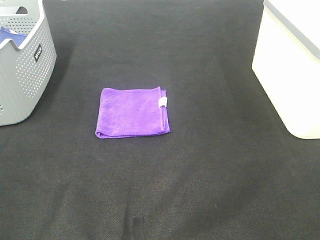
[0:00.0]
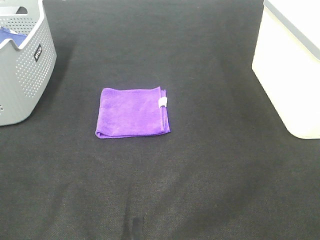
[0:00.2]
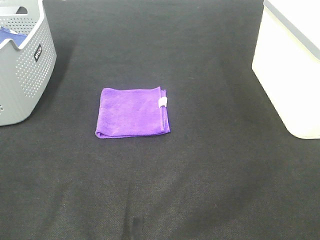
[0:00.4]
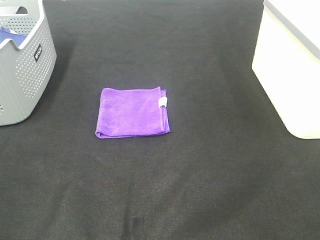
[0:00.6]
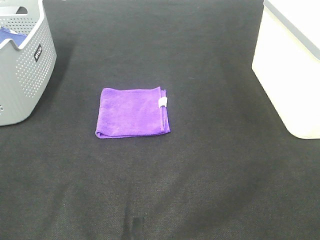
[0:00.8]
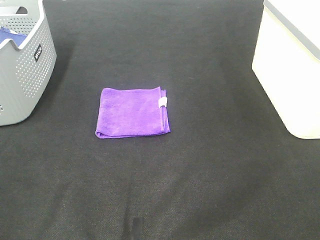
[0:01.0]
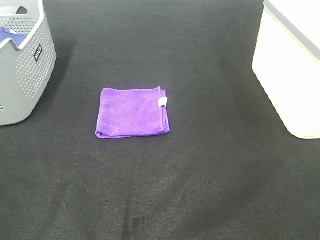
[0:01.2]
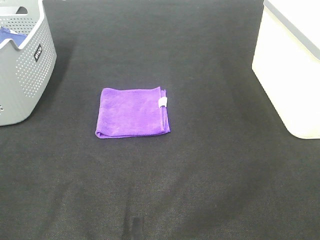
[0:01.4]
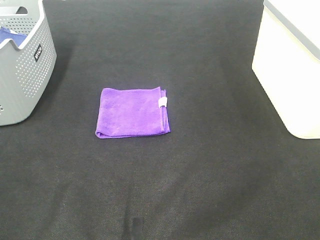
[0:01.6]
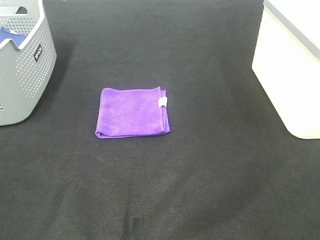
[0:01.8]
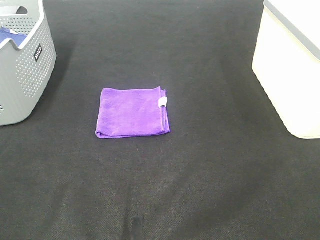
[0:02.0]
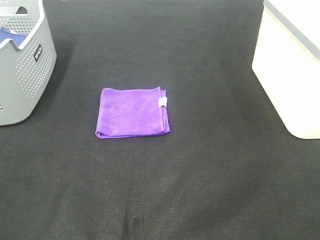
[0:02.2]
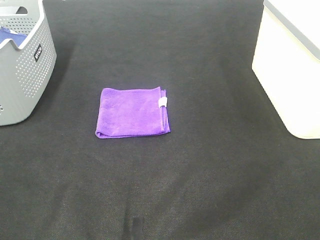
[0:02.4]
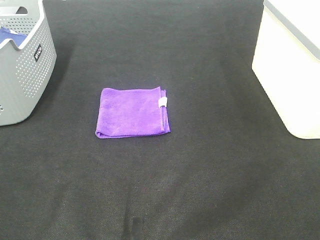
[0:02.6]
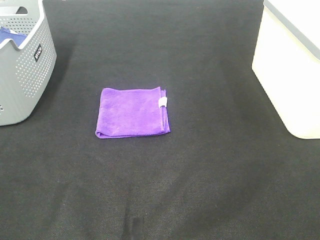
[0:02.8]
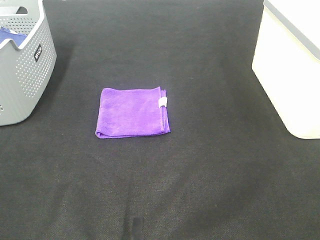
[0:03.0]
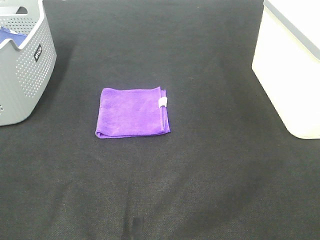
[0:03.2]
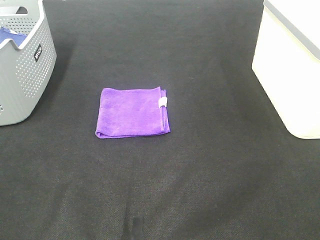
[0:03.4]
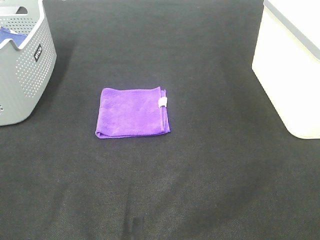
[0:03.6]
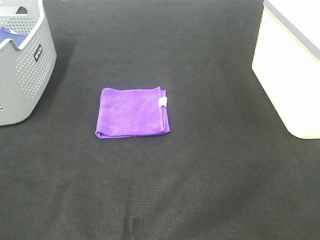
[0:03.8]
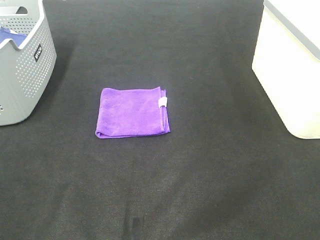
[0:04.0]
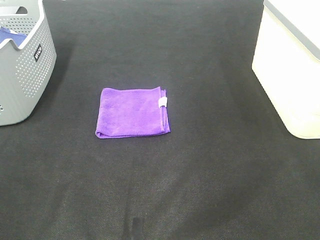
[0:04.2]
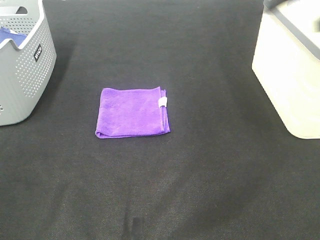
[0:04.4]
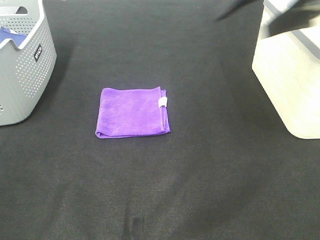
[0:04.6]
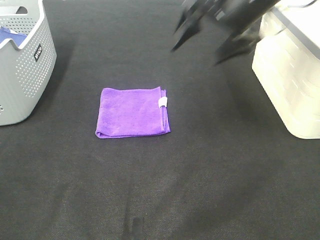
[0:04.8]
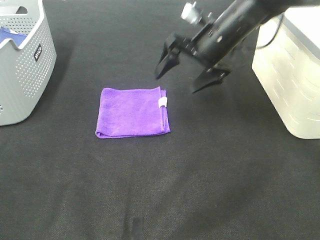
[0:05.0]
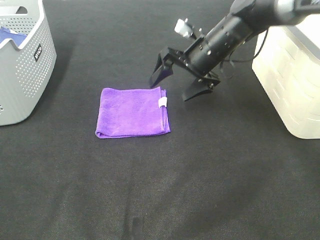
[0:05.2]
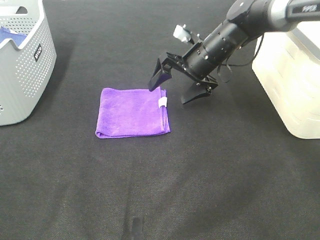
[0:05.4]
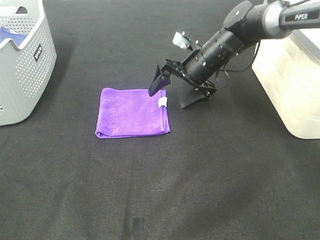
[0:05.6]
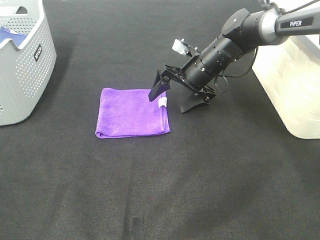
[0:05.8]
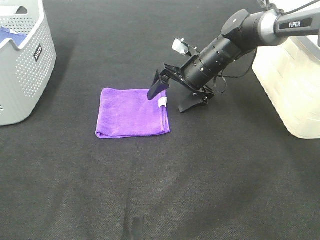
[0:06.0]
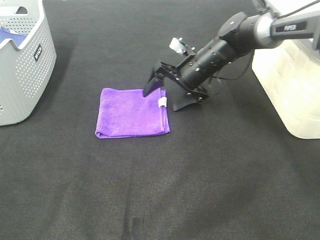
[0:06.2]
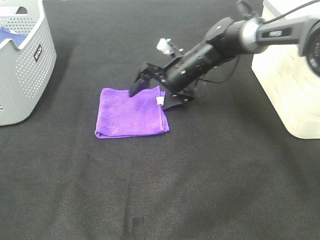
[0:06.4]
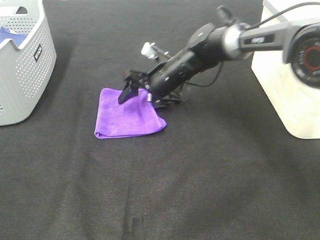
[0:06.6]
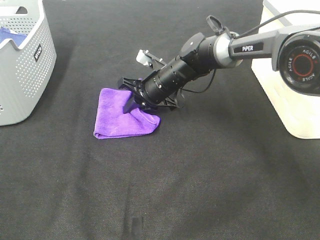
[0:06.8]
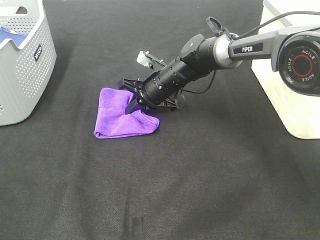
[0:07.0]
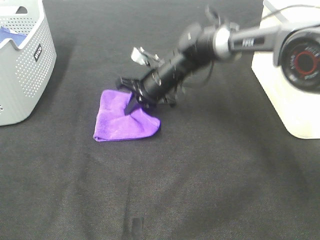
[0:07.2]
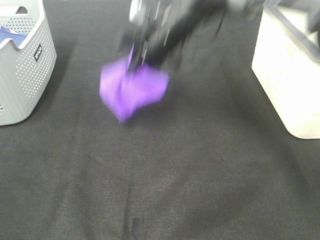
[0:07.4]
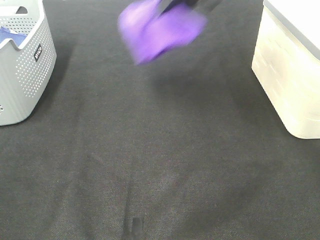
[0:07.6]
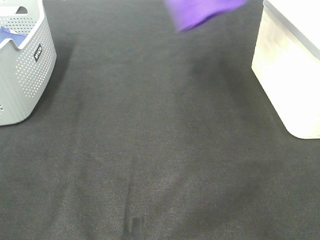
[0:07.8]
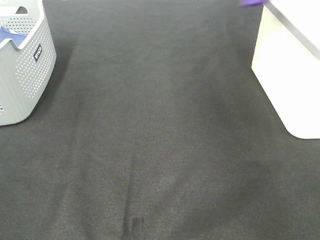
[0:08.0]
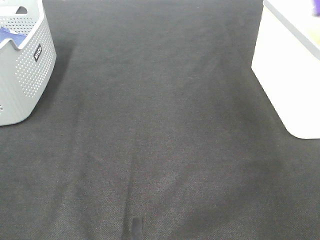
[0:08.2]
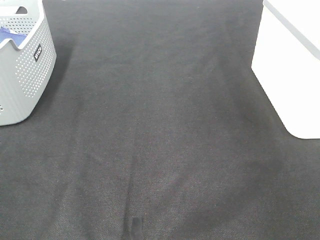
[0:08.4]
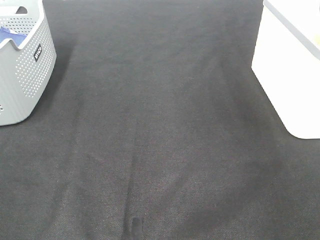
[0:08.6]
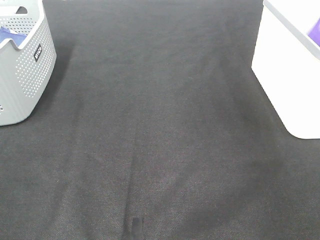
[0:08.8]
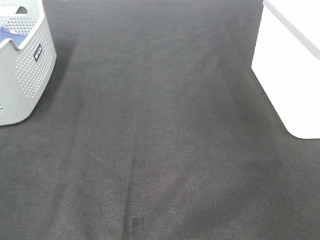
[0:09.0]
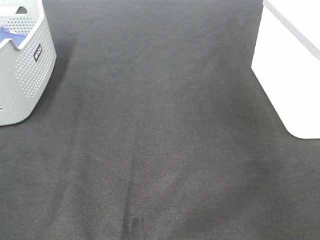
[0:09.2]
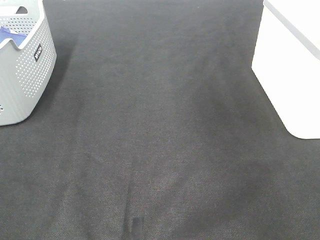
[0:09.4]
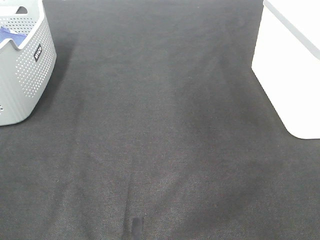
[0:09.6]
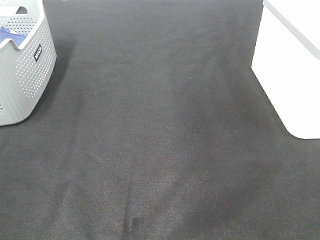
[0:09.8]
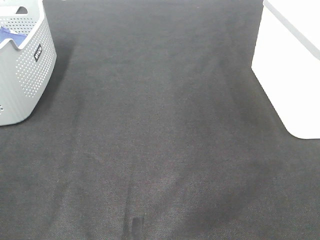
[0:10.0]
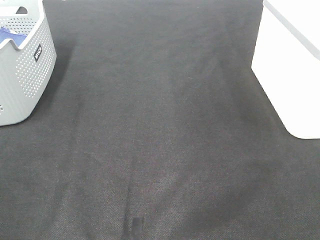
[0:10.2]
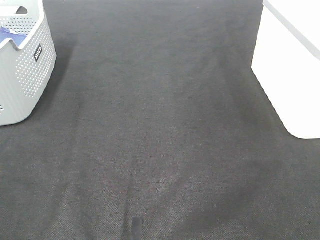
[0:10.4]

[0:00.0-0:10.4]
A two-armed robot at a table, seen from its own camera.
Step, 0:00.0 to 0:06.8: Right hand: grab the folded purple towel.
Step, 0:07.0 to 0:08.8: Right hand: place the purple towel in right basket.
0:00.0 to 0:03.0: Neither gripper changes place.
0:04.4 to 0:06.0: The right gripper moves downward, forward and to the left, some 35 cm.
0:06.0 to 0:07.4: The right gripper goes some 15 cm upward and to the left, and closes.
0:07.4 to 0:09.0: The right gripper shifts approximately 40 cm to the right, and opens.

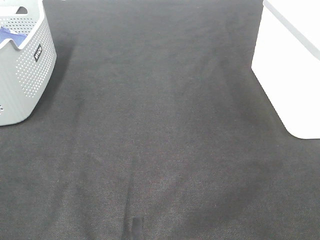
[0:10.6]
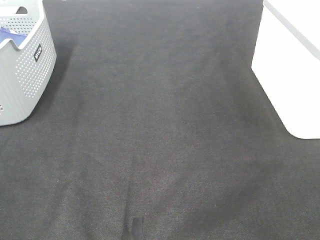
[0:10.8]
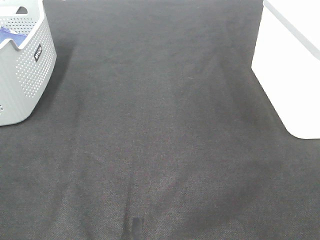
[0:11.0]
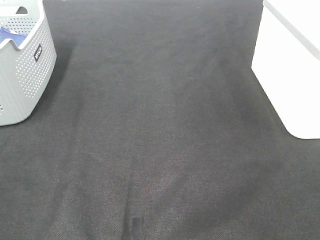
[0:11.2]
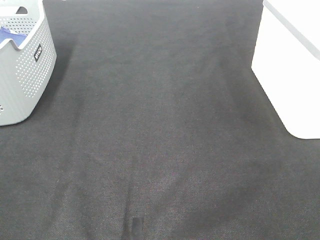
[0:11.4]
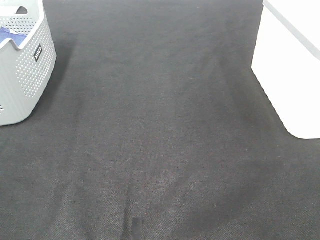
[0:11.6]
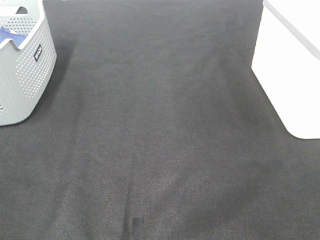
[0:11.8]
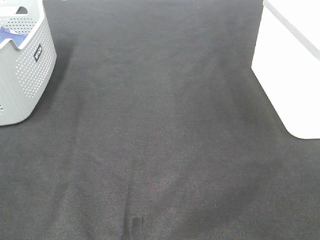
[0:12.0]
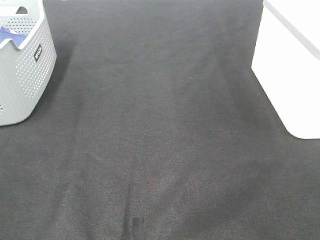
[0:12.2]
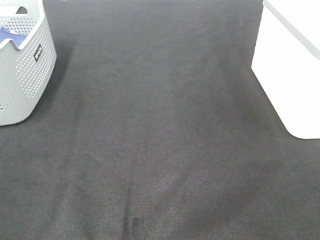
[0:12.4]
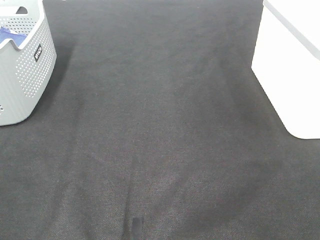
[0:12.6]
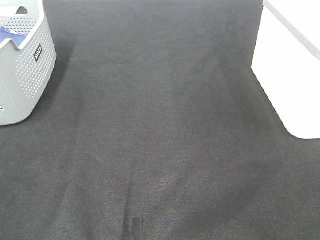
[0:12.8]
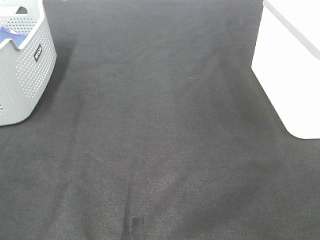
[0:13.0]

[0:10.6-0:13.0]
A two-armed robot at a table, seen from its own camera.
0:11.8 to 0:13.0: Neither gripper changes place.

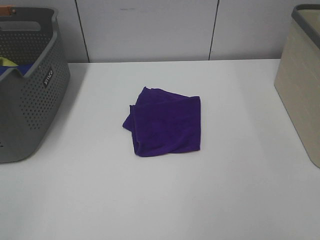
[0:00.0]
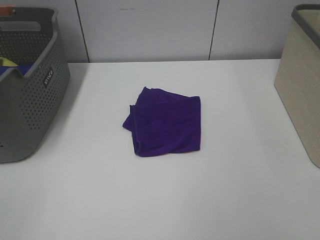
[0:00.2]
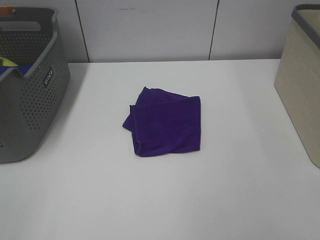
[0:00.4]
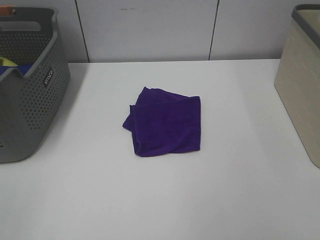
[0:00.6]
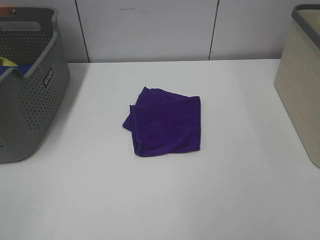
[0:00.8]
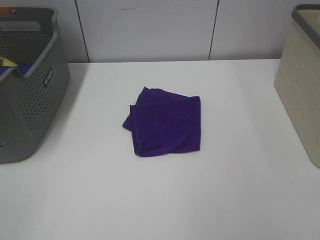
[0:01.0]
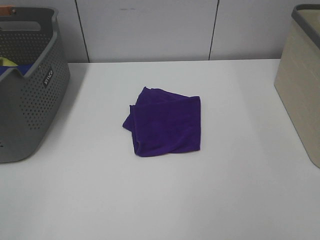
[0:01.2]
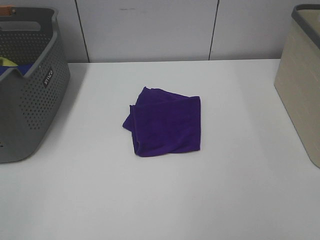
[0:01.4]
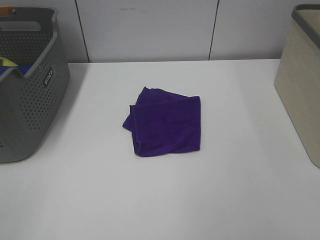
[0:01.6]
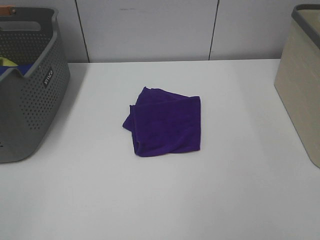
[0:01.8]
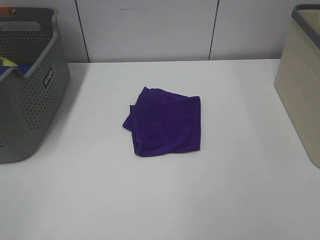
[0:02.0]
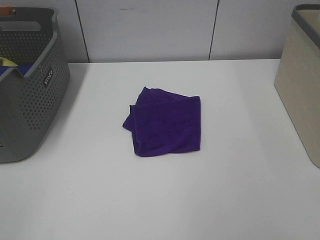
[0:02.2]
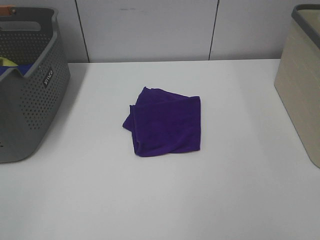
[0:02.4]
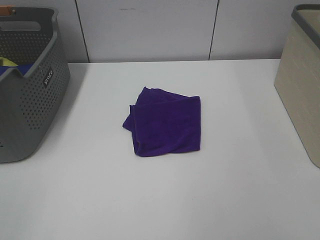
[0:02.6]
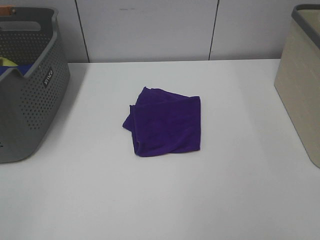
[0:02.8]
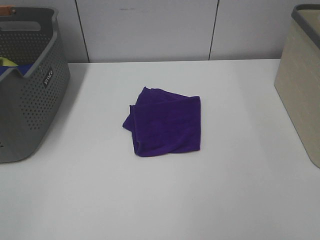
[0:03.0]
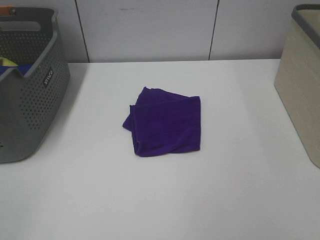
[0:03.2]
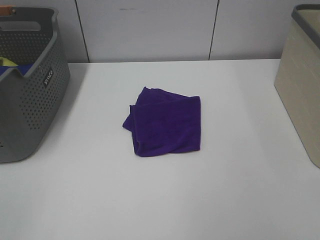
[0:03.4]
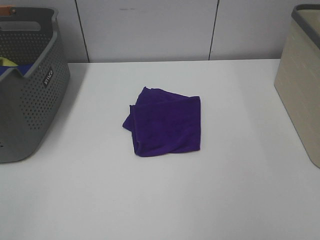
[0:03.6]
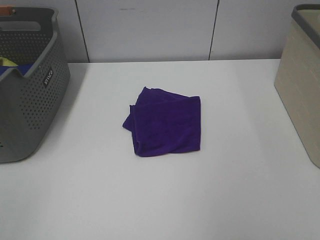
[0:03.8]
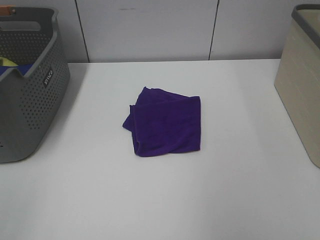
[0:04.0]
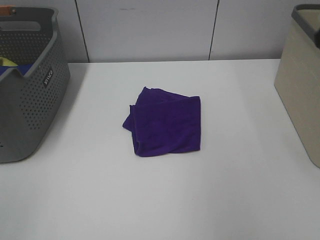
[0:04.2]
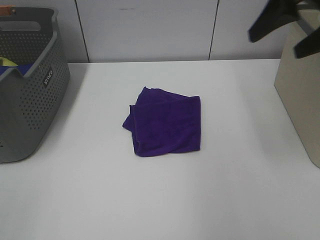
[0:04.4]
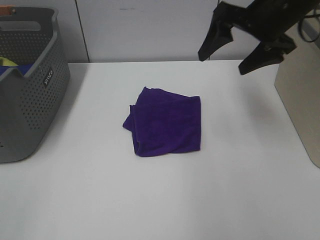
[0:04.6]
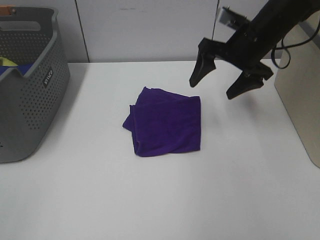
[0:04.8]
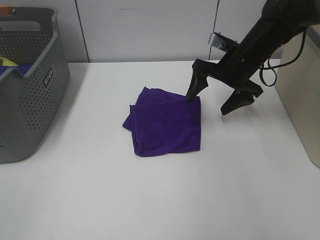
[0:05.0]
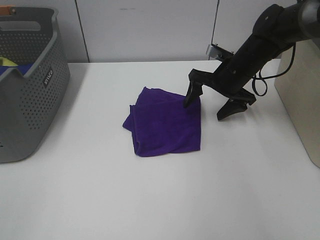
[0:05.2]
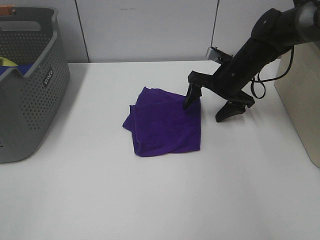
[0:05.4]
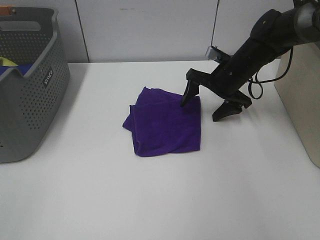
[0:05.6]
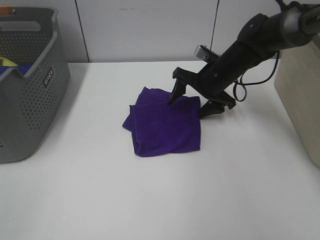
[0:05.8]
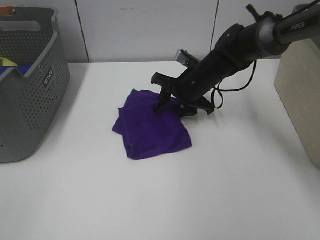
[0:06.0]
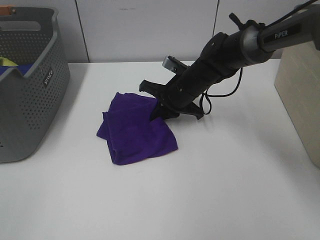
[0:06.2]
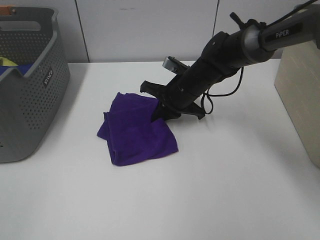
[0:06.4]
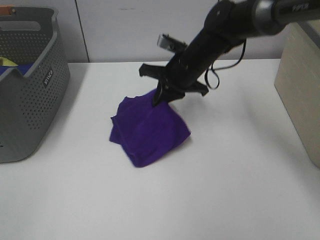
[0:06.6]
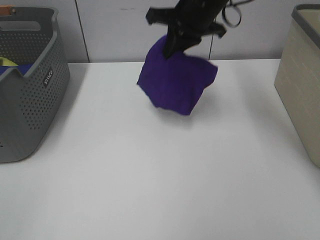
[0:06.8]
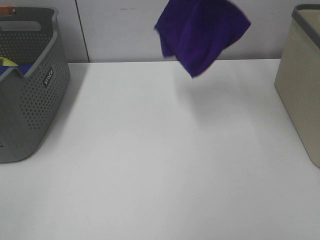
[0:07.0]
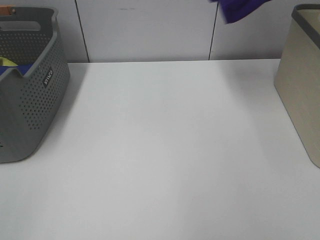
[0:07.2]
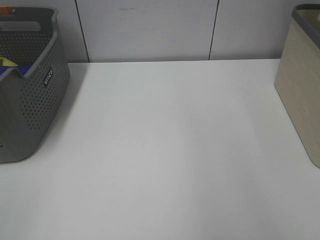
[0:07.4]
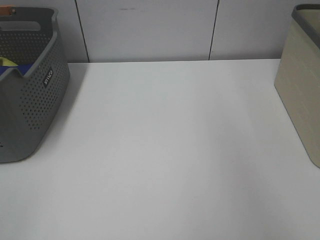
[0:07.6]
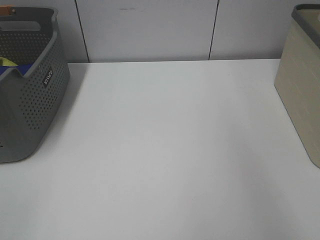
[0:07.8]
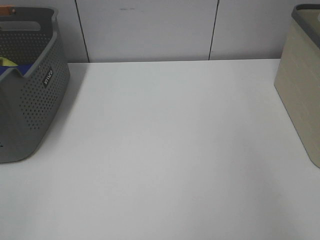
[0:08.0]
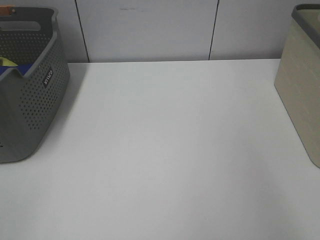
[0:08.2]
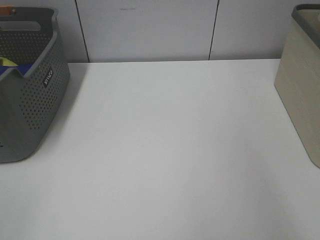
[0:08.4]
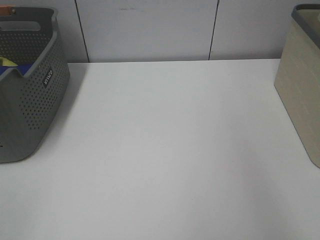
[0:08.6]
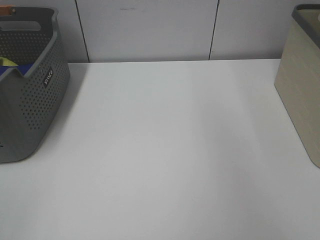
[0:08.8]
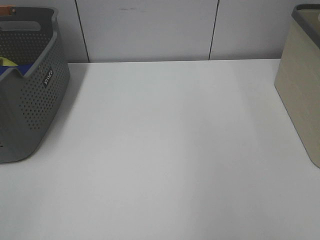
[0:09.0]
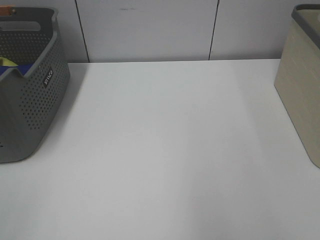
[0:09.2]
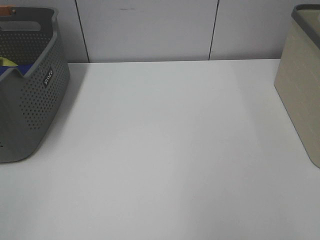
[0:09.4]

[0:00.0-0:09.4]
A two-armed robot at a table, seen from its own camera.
Step, 0:00.0 to 0:06.2: Right hand: grab the folded purple towel.
Step, 0:06.4 to 0:08.4: Right hand: place the purple towel in right basket.
0:00.0 to 0:03.2: Both grippers stay about where they are.
0:03.2 to 0:04.8: The right gripper is displaced forward by some 40 cm.
0:04.8 to 0:06.2: The right gripper goes roughly 15 cm downward and to the left, and closes up.
0:06.2 to 0:07.8: The right gripper is displaced to the right and upward by some 50 cm.
